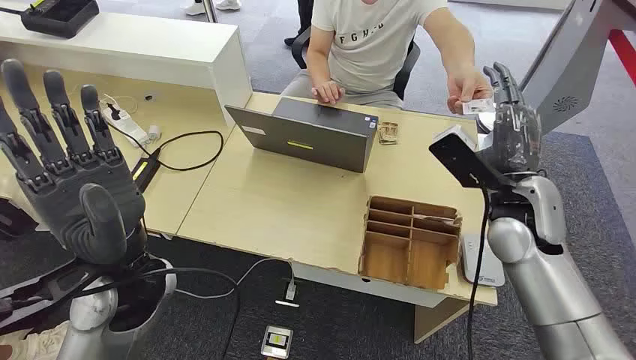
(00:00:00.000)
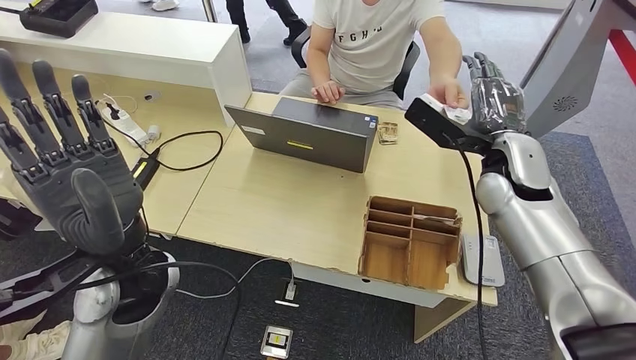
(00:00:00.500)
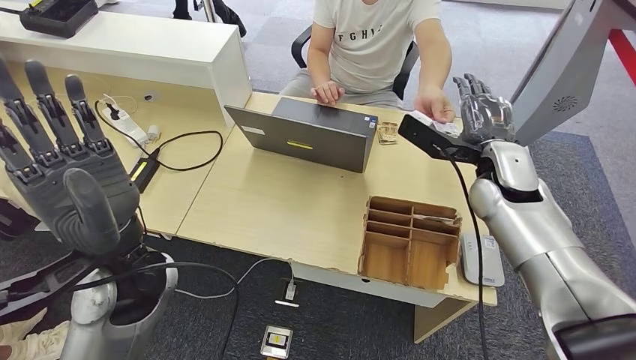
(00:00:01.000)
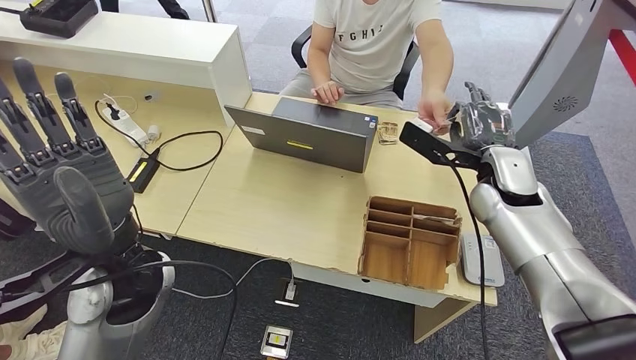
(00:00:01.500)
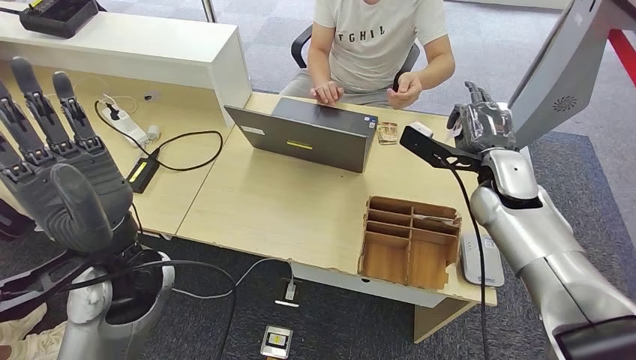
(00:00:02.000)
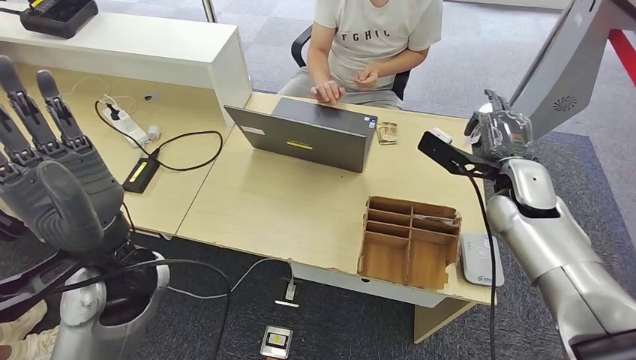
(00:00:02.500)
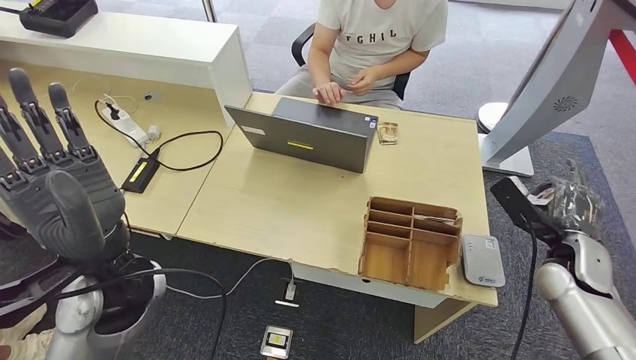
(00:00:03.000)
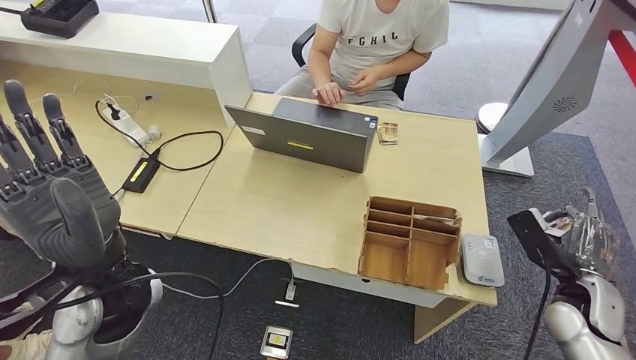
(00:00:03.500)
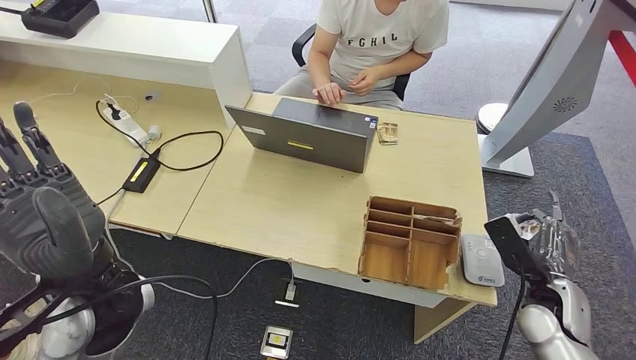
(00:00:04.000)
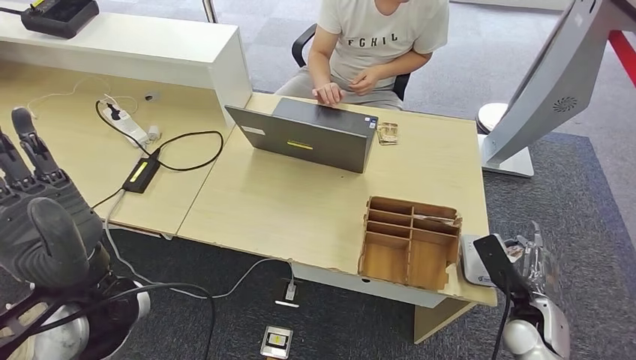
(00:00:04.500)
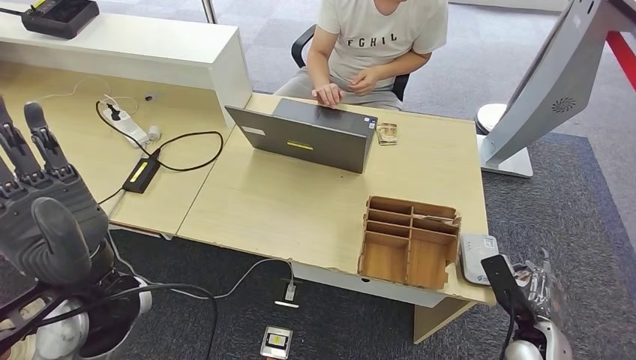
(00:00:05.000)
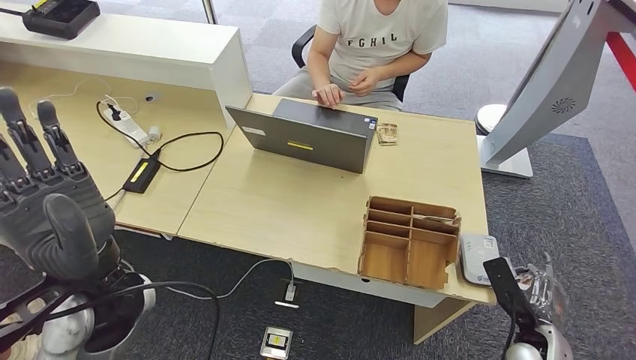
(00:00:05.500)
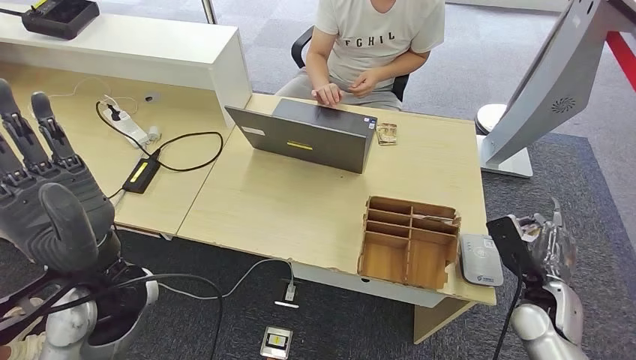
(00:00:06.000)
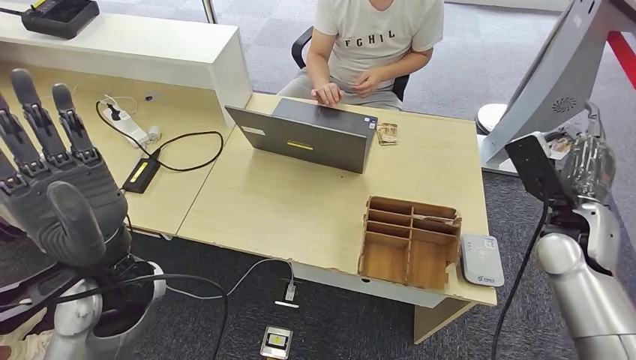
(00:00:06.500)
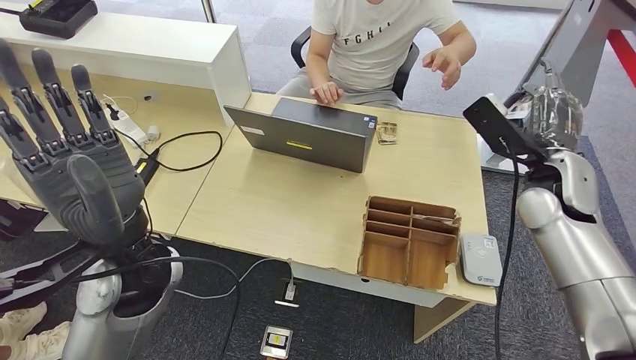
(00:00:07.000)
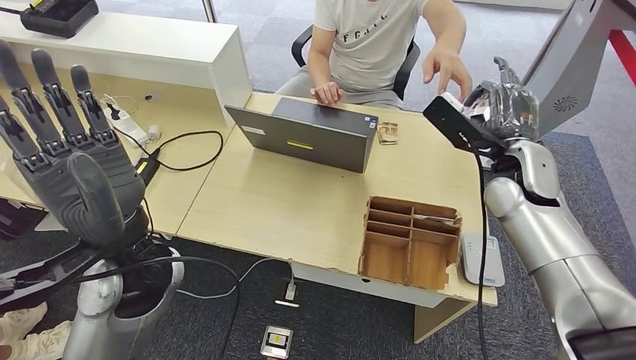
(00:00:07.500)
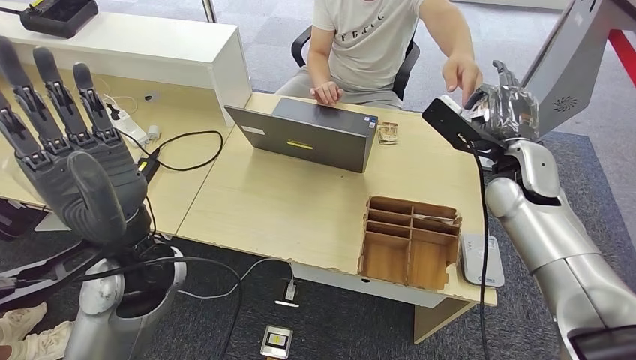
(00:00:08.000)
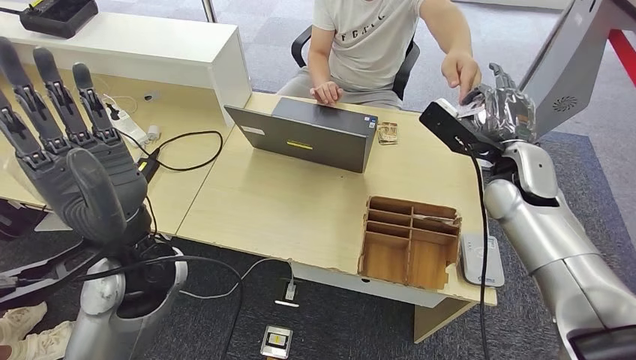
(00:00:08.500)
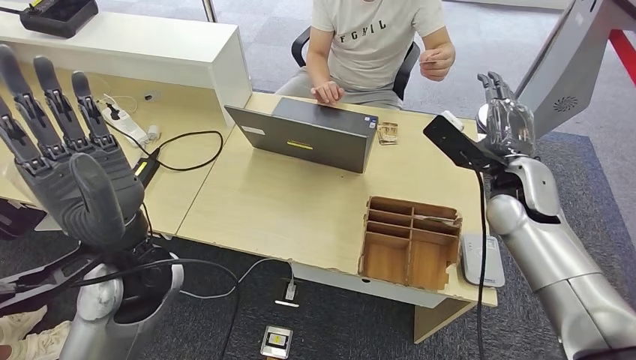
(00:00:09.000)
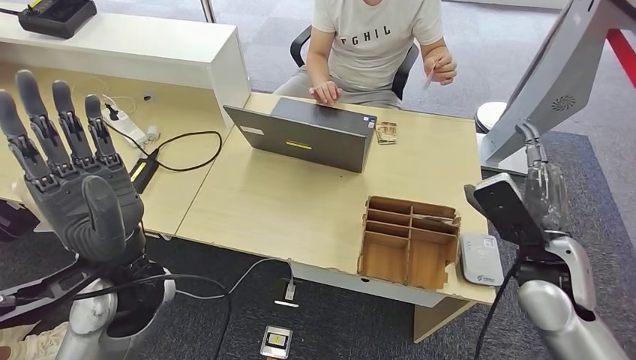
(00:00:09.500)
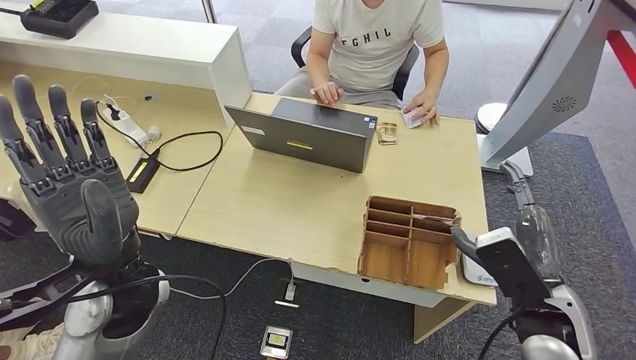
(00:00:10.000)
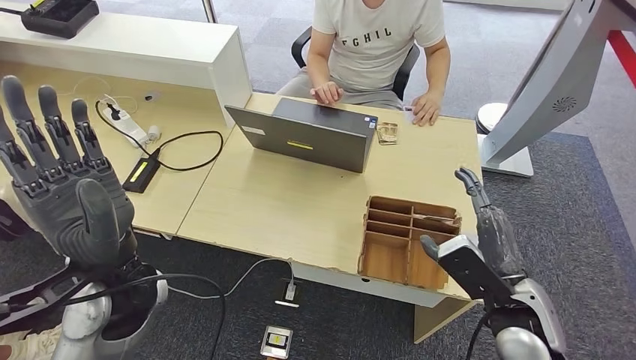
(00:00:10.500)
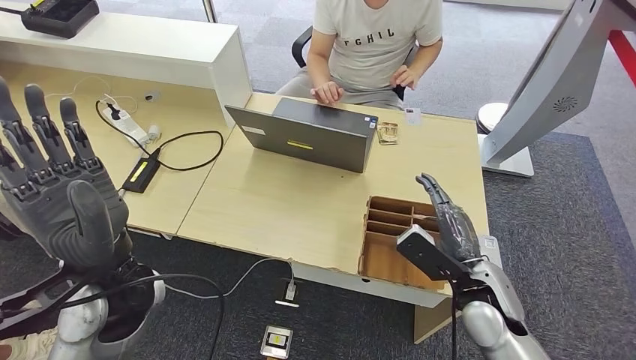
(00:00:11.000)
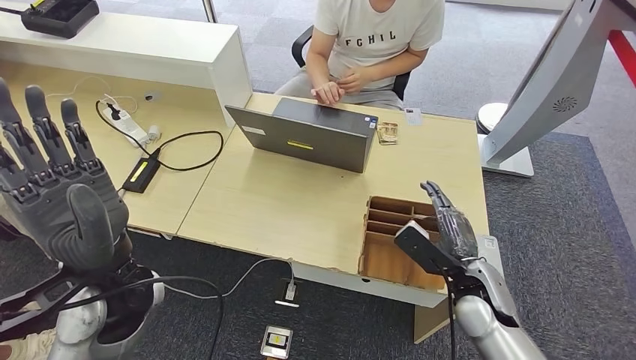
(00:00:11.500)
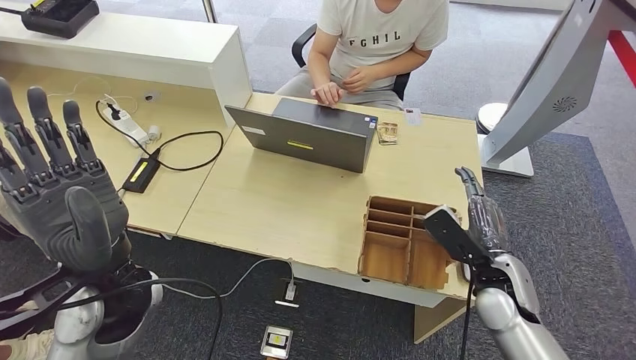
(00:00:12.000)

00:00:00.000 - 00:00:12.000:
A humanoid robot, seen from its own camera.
Step, 00:00:00.000 - 00:00:02.500: Take the ID card from the person's hand.
Step, 00:00:03.500 - 00:00:07.000: Place the ID card on the card reader.
Step, 00:00:07.500 - 00:00:10.000: Hand the ID card to the person.
00:00:04.000 - 00:00:06.000: The right hand moves about 10 cm downward and comes back.
00:00:10.000 - 00:00:12.000: The right hand is displaced forward and downward by some 10 cm.

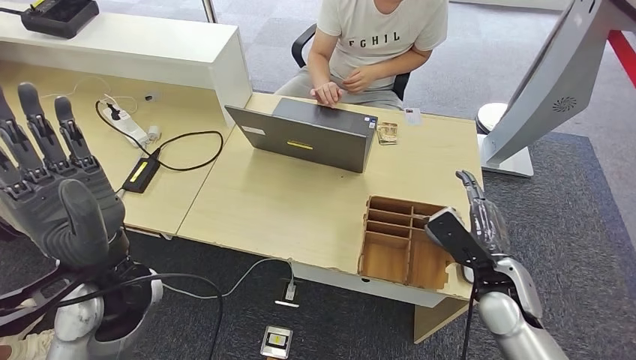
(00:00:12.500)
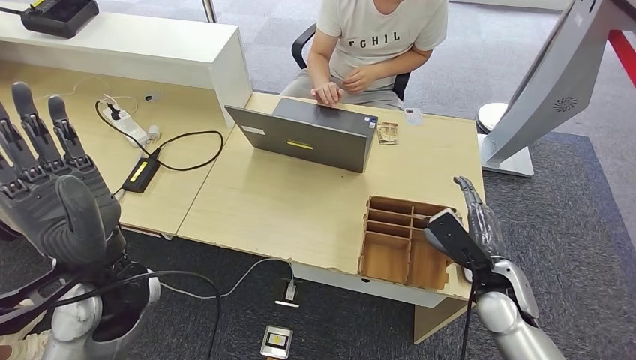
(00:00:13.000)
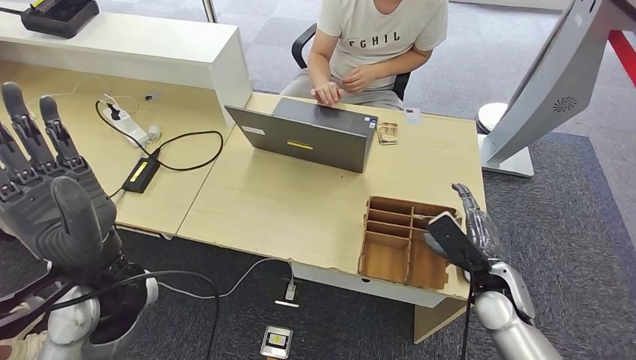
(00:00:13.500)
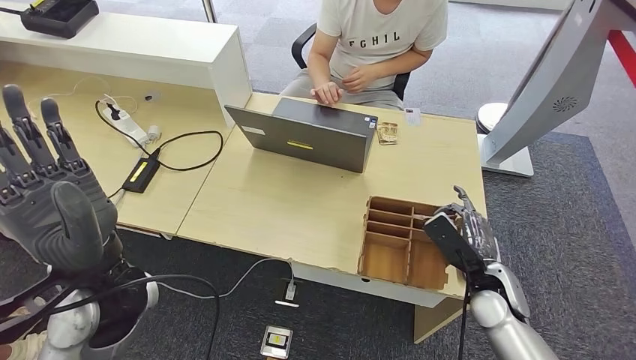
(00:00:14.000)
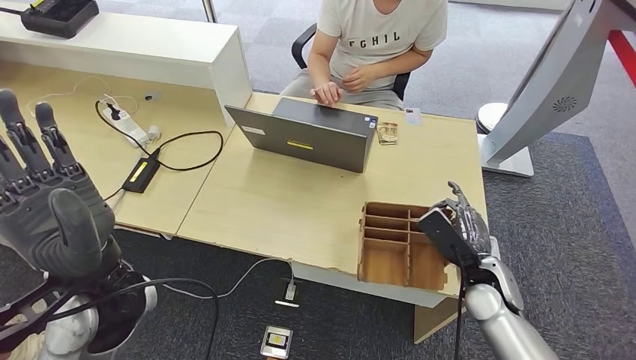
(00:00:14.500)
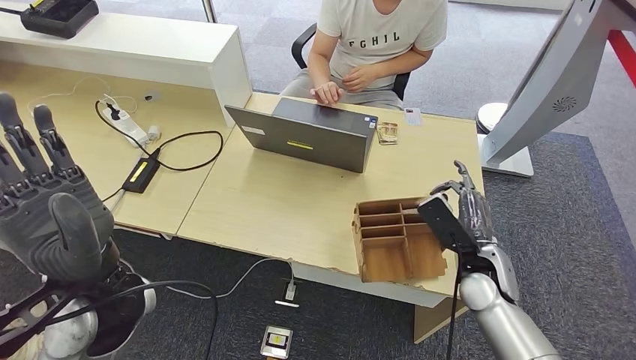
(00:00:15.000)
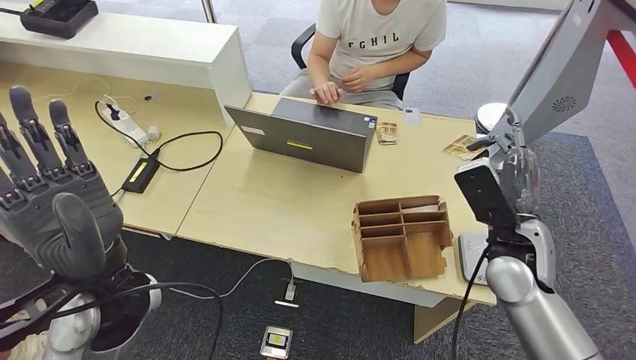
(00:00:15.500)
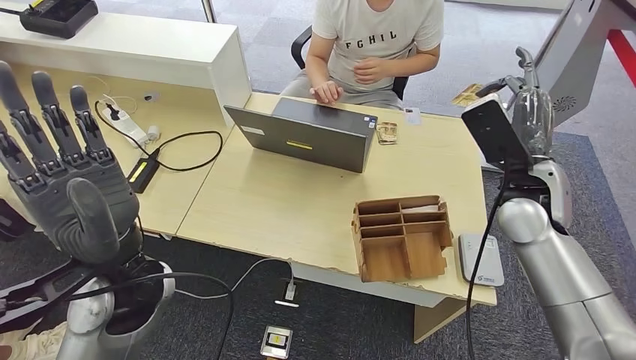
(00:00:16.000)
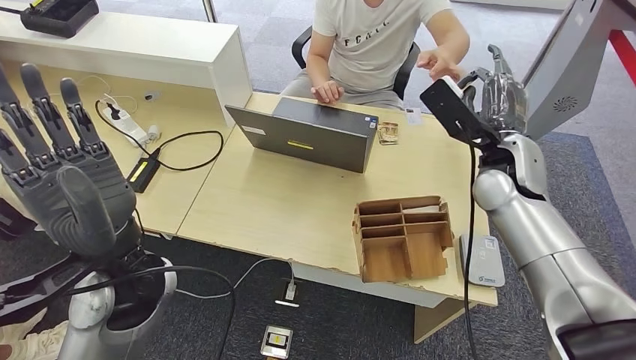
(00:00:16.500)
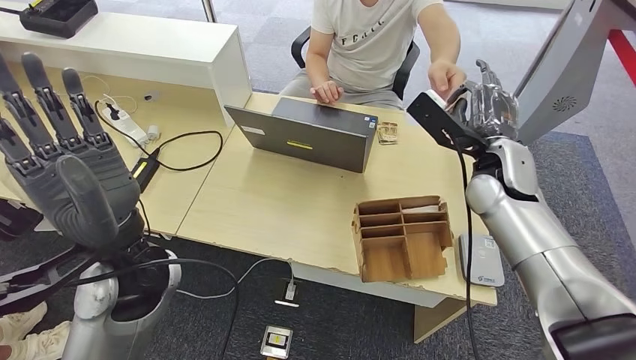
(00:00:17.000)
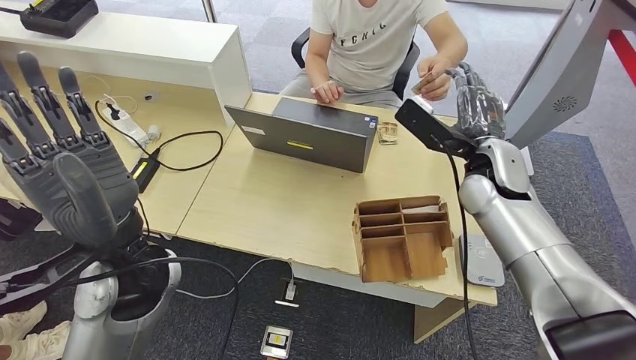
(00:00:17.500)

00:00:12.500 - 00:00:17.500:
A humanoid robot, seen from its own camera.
Step, 00:00:14.000 - 00:00:15.500: Pick up the room key from the key card box.
Step, 00:00:16.000 - 00:00:17.500: Hand the room key to the person.
00:00:12.500 - 00:00:15.000: There are only small adjustments of the hands.
